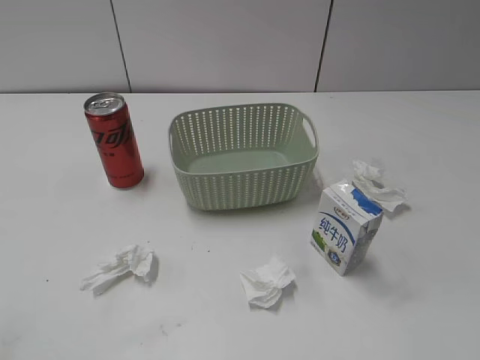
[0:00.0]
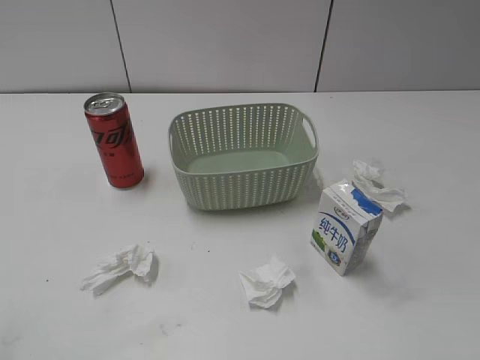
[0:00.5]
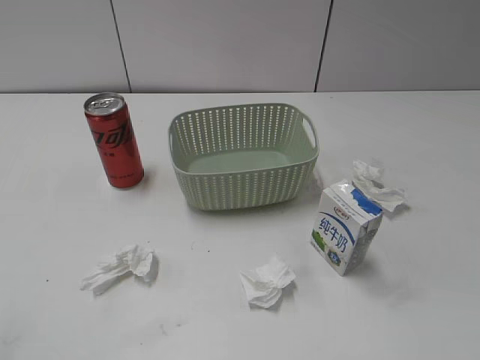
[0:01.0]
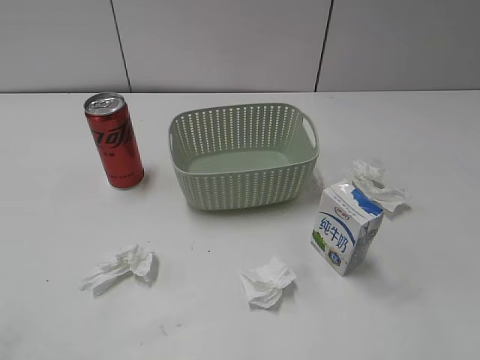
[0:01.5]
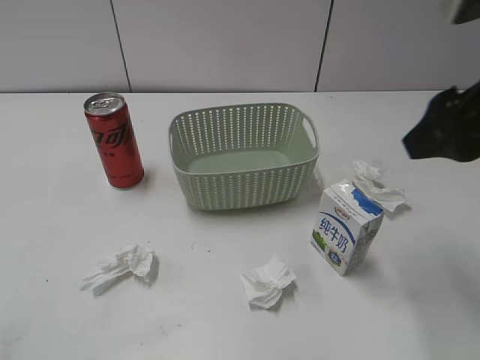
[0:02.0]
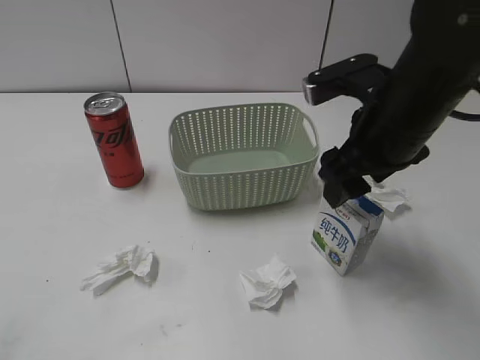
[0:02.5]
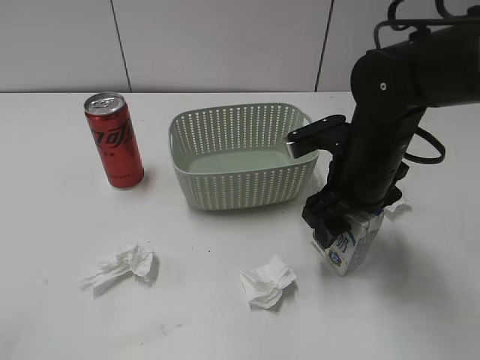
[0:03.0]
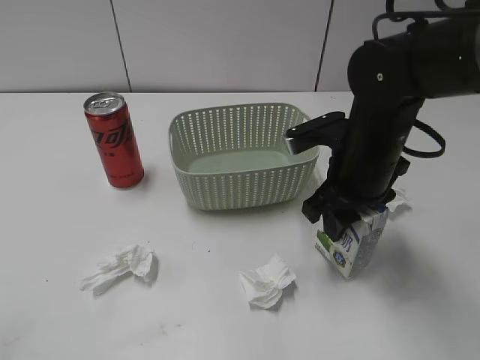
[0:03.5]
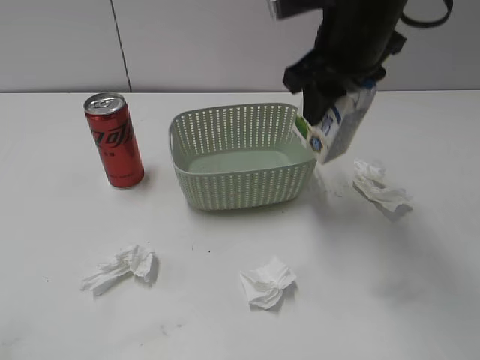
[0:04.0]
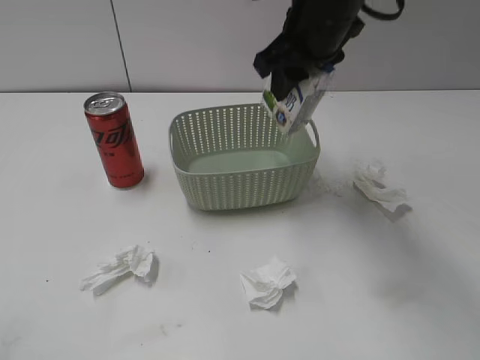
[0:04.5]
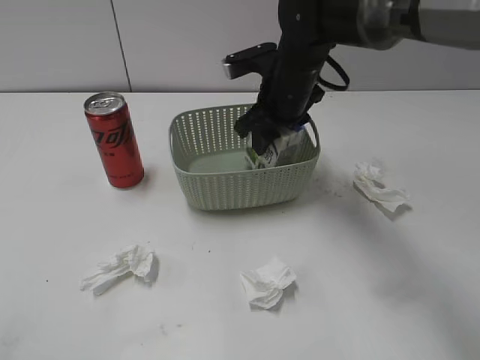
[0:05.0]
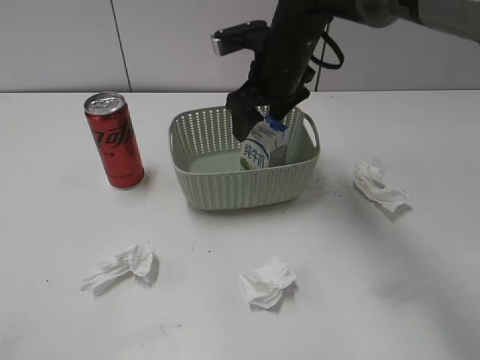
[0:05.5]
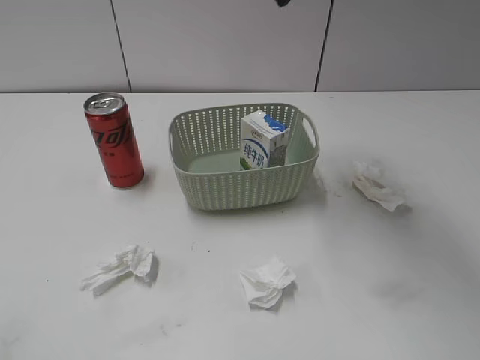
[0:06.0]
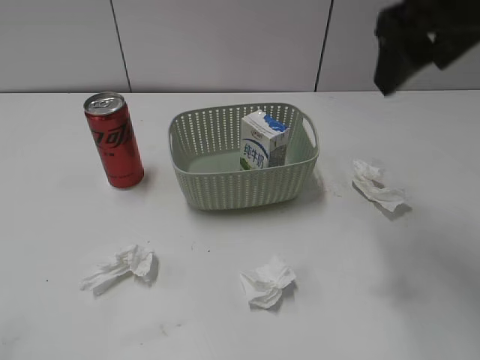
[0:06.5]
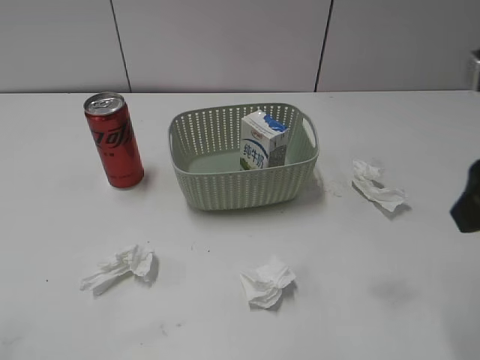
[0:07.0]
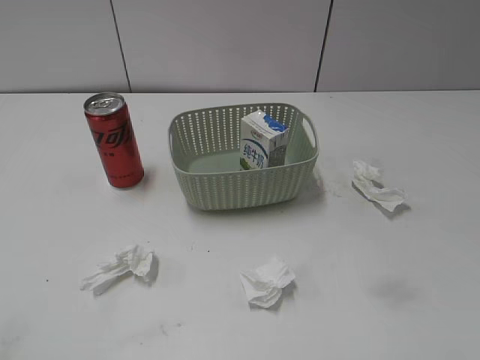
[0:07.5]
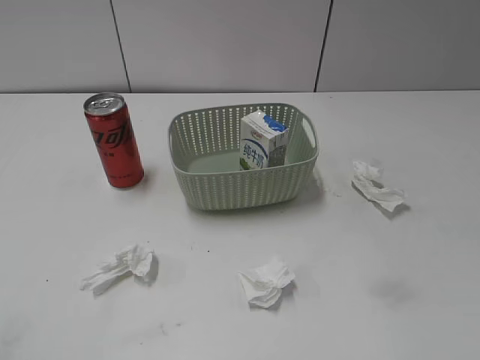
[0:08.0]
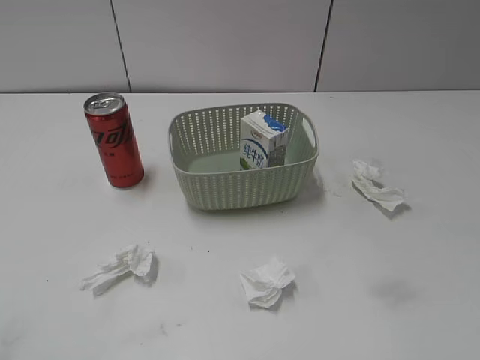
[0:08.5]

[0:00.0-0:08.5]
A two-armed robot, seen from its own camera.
Step, 0:02.0 to 0:03.0: Grasp the milk with right gripper.
Step, 0:03.5 to 0:05.5: Place the milk in the basket with right gripper.
0:02.0 to 0:04.0: The right gripper shifts about 20 cm to the left, forward and downward, and closes.
0:04.0 to 0:06.5: The right gripper moves up and down over about 20 cm, changing direction 2 times, and opens.
0:06.5 to 0:08.5: The right gripper is displaced backward and to the right by about 35 cm.

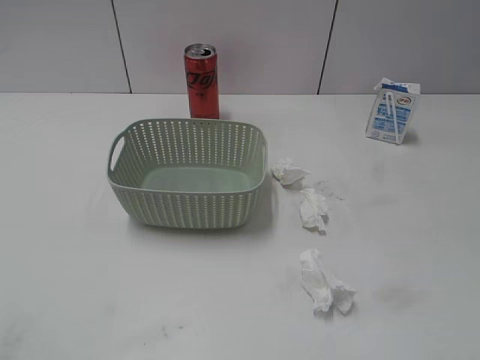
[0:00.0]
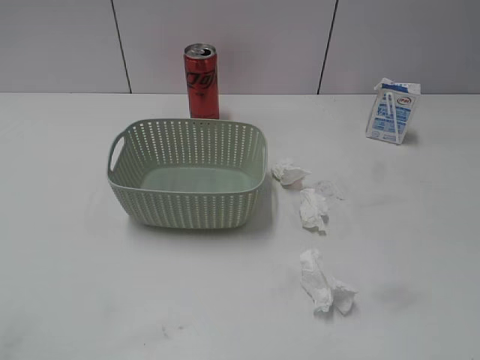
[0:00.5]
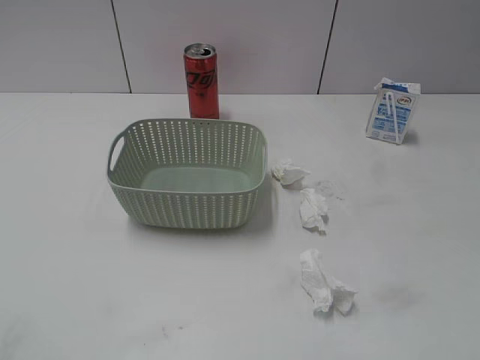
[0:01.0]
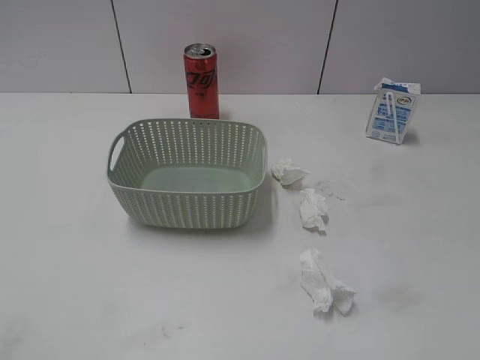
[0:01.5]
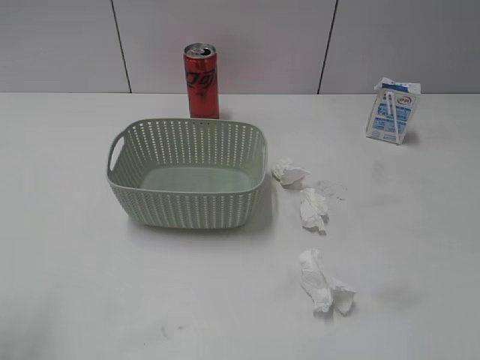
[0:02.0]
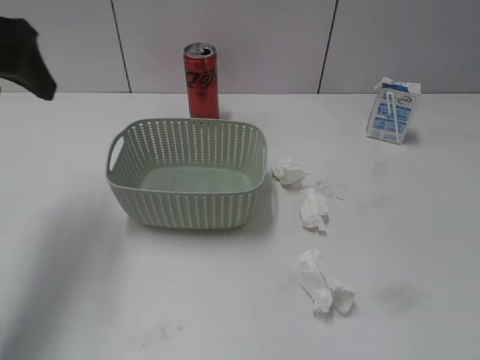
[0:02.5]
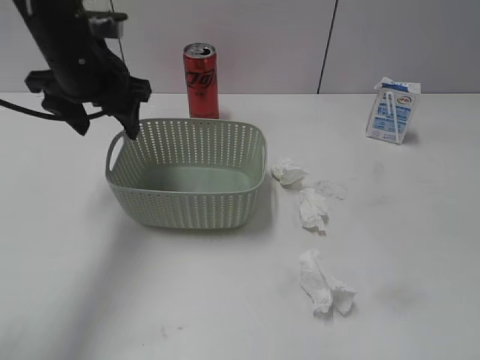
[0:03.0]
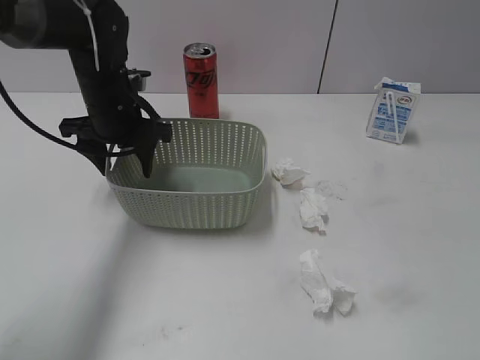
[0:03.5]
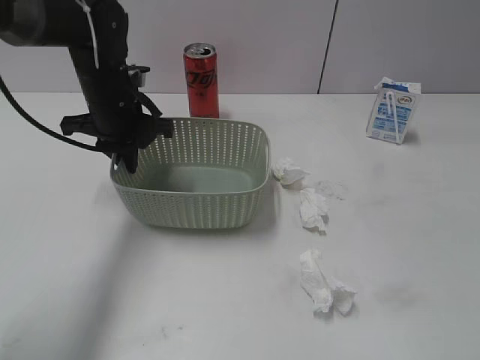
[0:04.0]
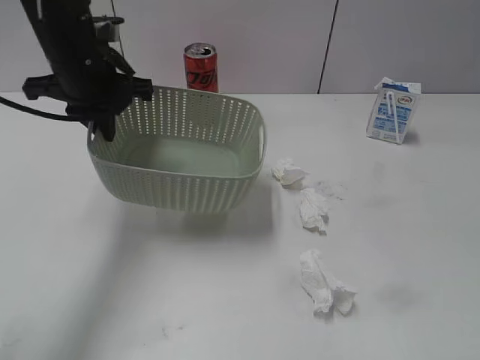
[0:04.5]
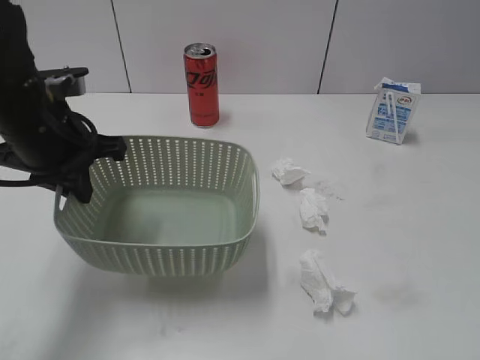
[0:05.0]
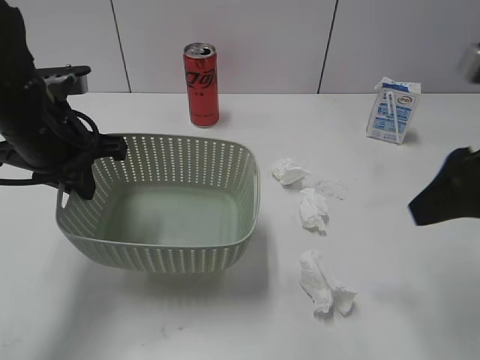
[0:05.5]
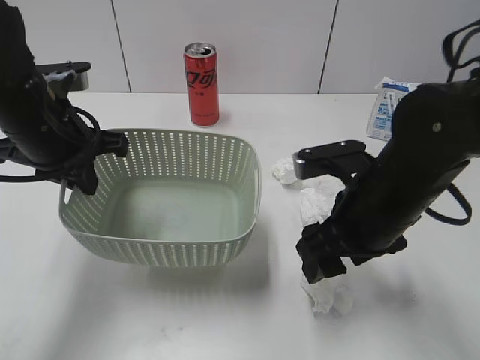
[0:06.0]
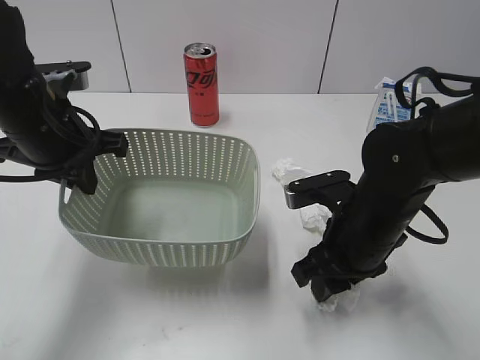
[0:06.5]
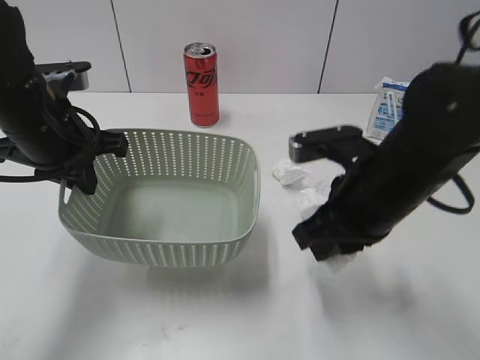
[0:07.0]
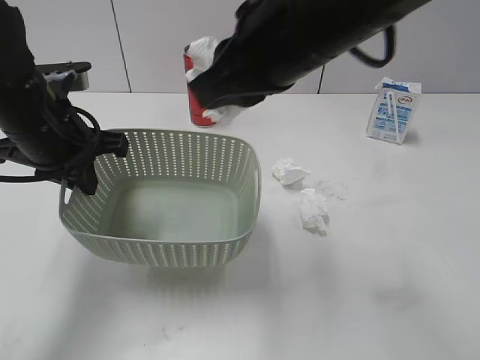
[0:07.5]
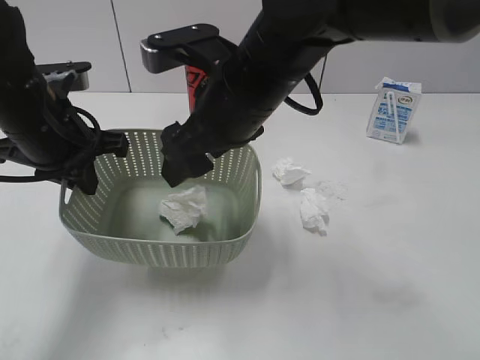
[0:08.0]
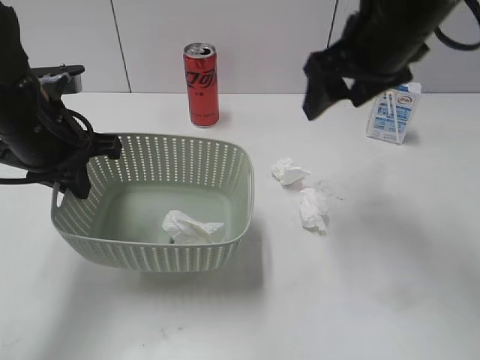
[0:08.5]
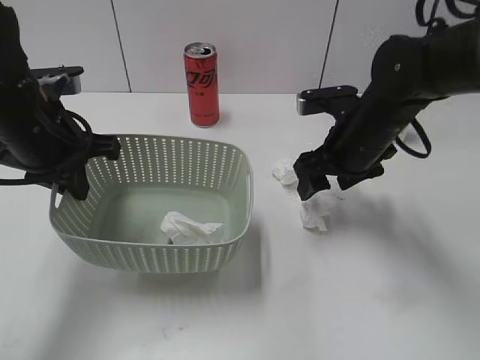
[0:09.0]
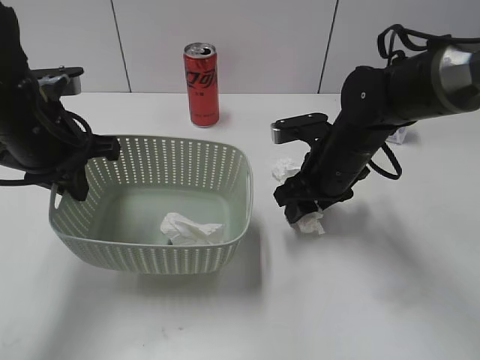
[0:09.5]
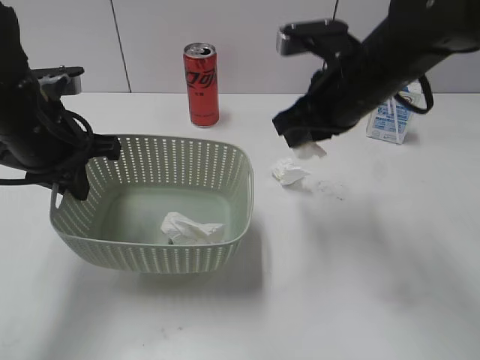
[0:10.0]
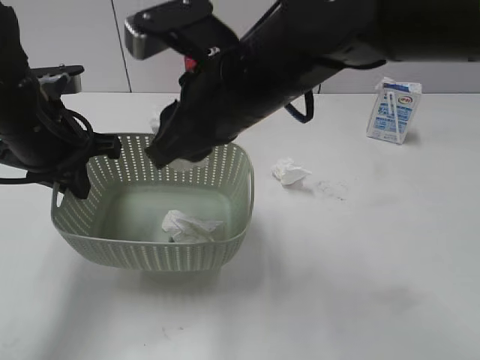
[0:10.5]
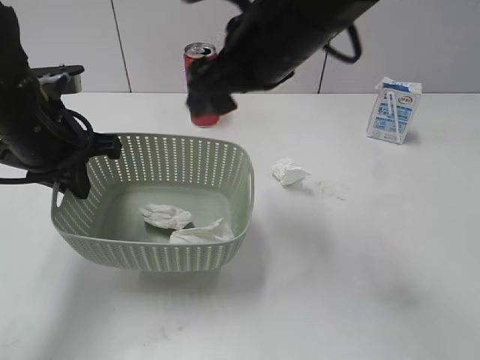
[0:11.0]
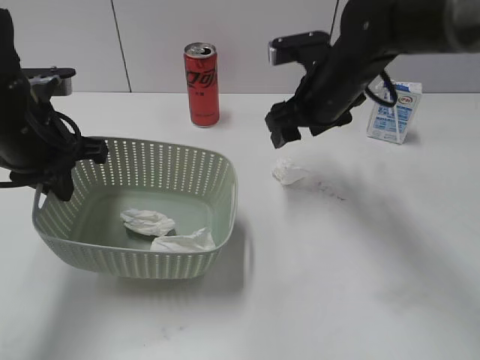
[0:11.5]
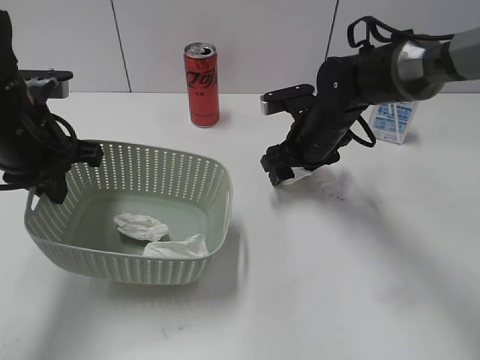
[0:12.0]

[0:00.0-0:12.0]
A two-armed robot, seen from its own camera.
Step, 0:02.5 to 0:04.0: Grasp the basket with left gripper.
Step, 0:04.5 to 0:05.0: Lift the basket with left gripper.
Step, 0:05.5 to 0:06.5: Grasp the waste paper with right gripper.
Step, 0:07.0 to 0:08.0: Place the waste paper in the basket with right gripper.
Step, 0:08.5 to 0:10.0: Grasp the waste paper with right gripper.
0:02.0 to 0:04.0: The left gripper moves forward, downward and to the right, roughly 40 cm, and closes its fingers.
0:04.0 to 0:06.0: The left gripper shifts about 10 cm backward. The right gripper shifts approximately 30 cm forward, to the left and downward.
0:06.0 to 0:08.0: The right gripper swings up and down, approximately 20 cm each way, with 2 reversals, and closes, then opens again.
0:08.0 to 0:10.0: The right gripper swings up and down, approximately 20 cm each way, with 2 reversals, and closes its fingers.
0:10.0 to 0:12.0: The right gripper shifts roughly 15 cm downward and forward, and opens its fingers.

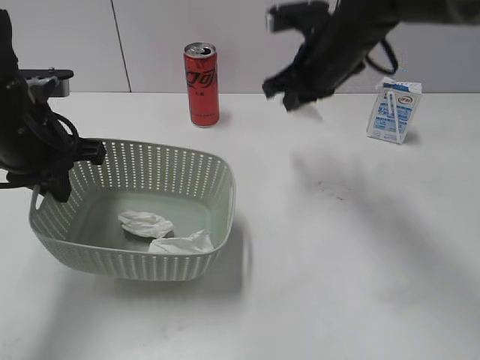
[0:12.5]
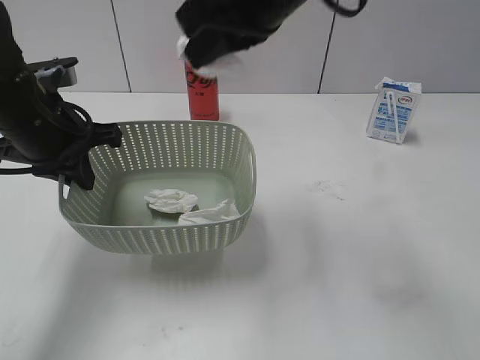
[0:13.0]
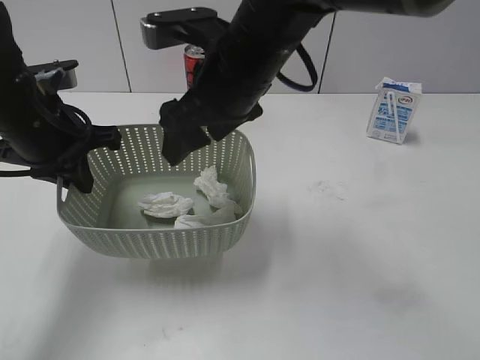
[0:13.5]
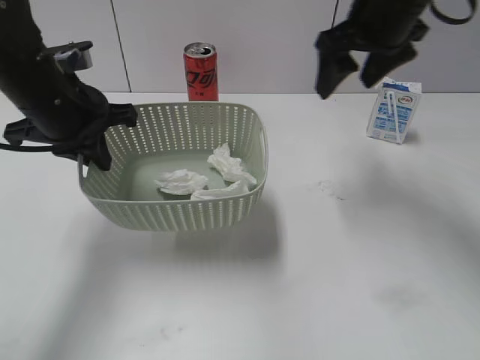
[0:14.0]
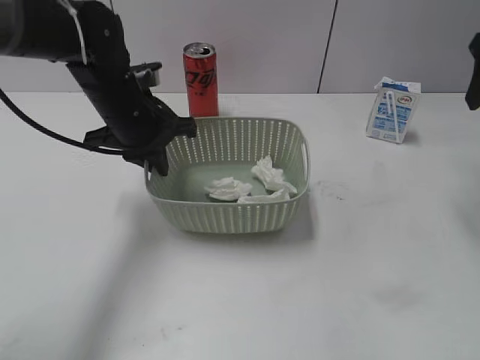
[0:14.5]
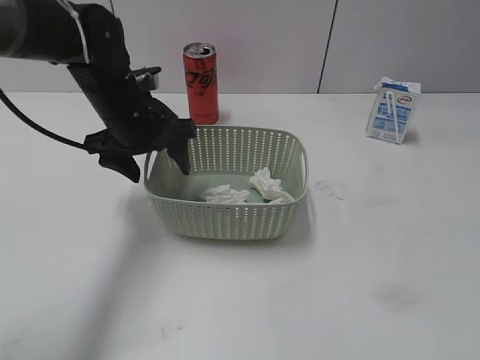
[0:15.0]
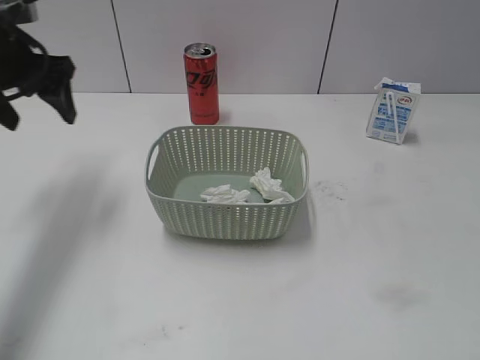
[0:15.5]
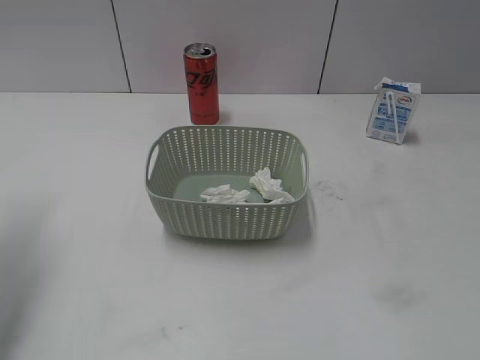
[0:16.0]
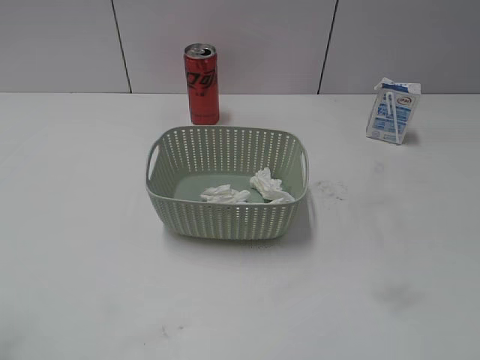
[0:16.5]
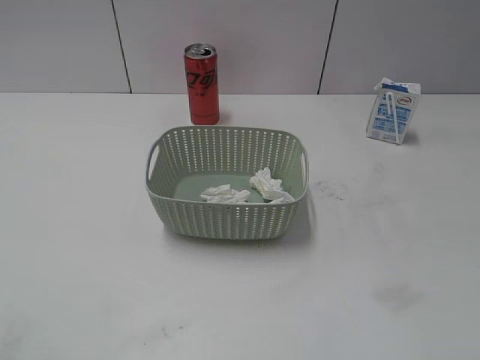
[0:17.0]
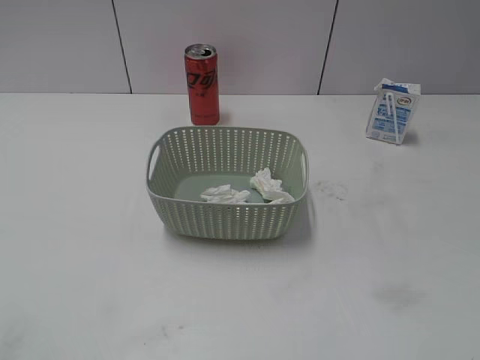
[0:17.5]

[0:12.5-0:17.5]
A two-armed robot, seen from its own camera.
Step, 0:13.0 to 0:13.5: Place the waste paper in the basket with right gripper.
Step, 0:14.0 to 0:15.0: Place the basket on the table with left gripper.
0:12.5 to 0:15.0: The right gripper travels to the right, backward and upward by approximately 30 cm, and opens its fingers. The left gripper goes about 10 cm to the right and forward, and opens.
0:15.0 to 0:17.5: The right gripper heads backward, covering roughly 20 cm. Meanwhile the left gripper heads backward and to the left, covering roughly 40 cm.
